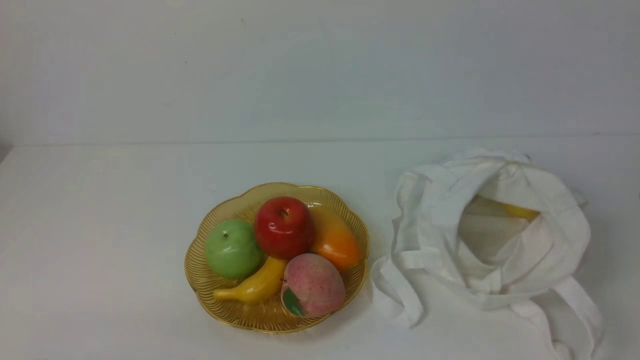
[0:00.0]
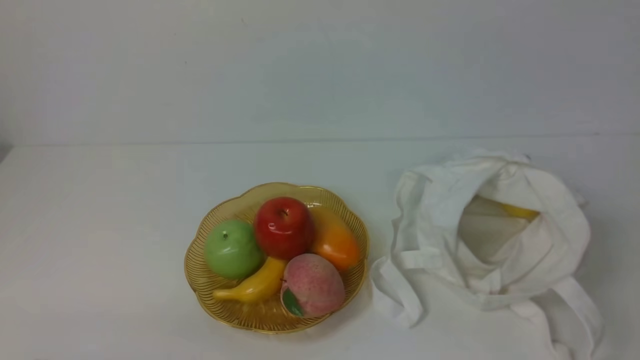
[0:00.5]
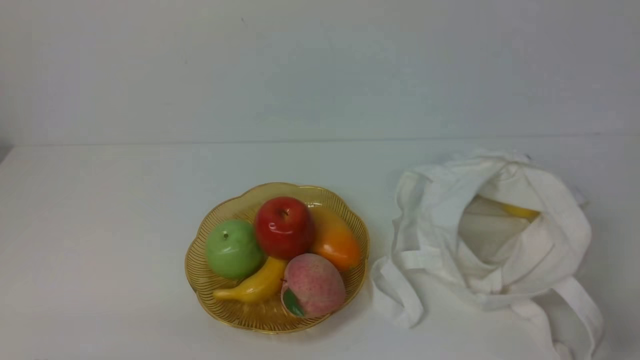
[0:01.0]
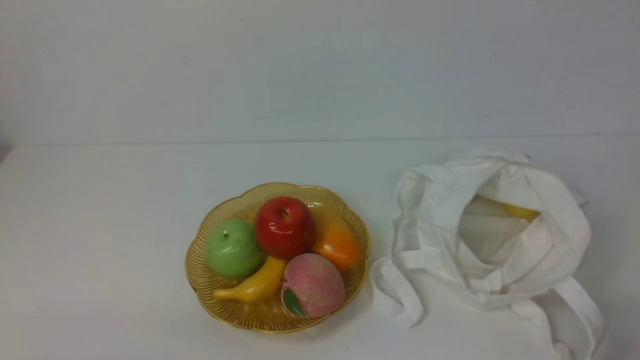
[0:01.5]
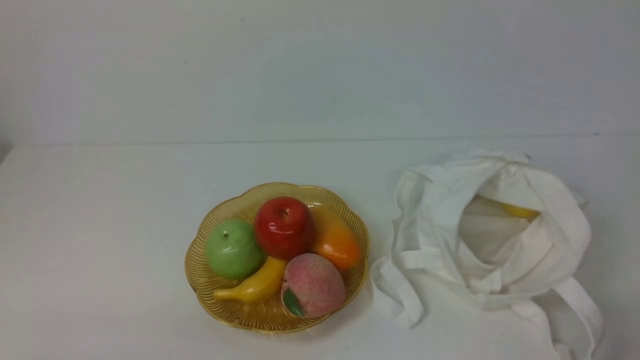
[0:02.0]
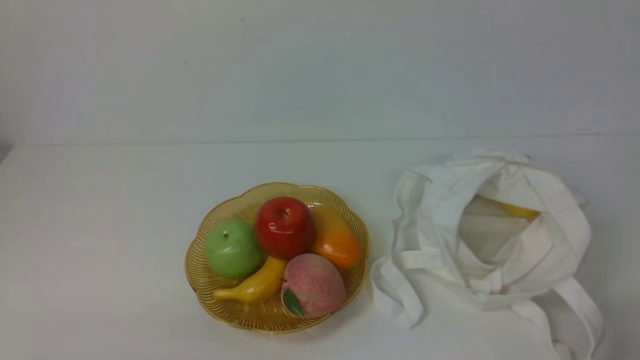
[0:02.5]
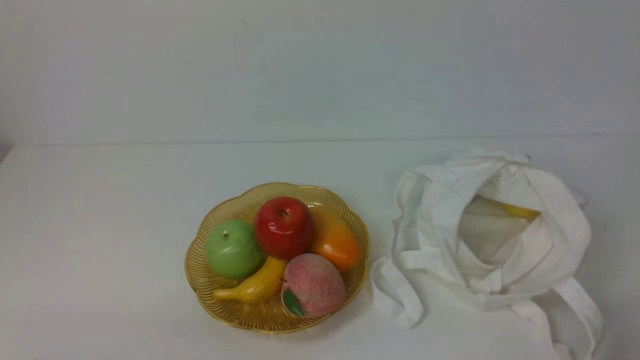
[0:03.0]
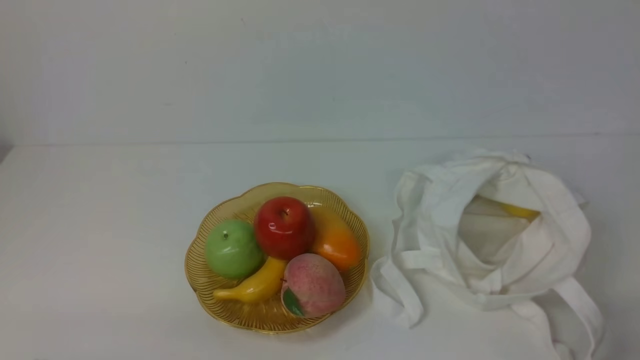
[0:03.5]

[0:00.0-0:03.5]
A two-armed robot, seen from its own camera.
0:02.0 to 0:03.5: Both grippers stay put.

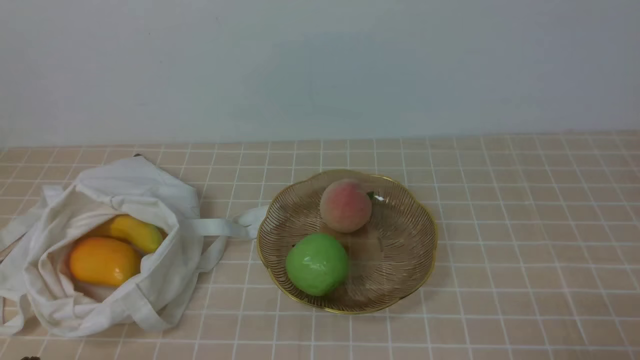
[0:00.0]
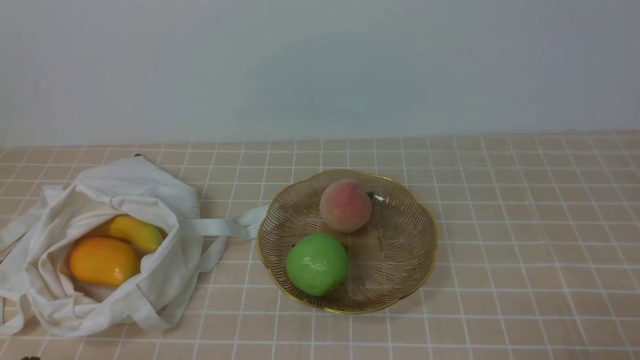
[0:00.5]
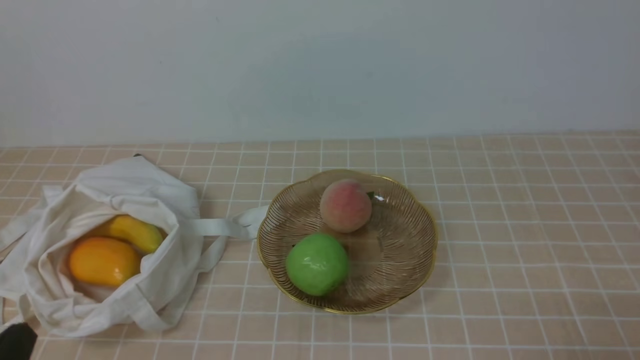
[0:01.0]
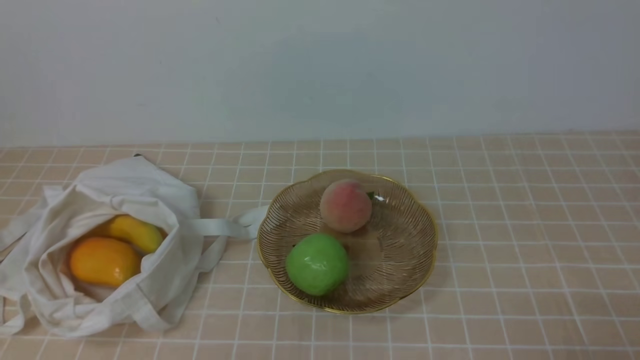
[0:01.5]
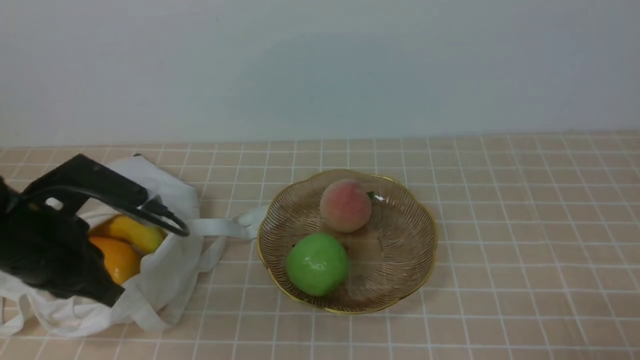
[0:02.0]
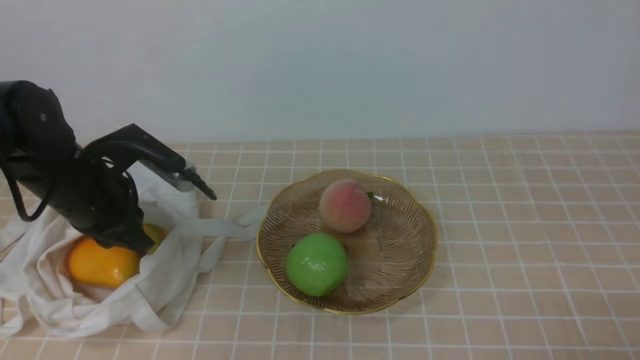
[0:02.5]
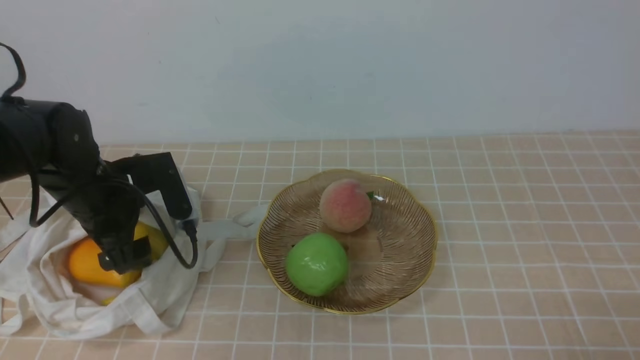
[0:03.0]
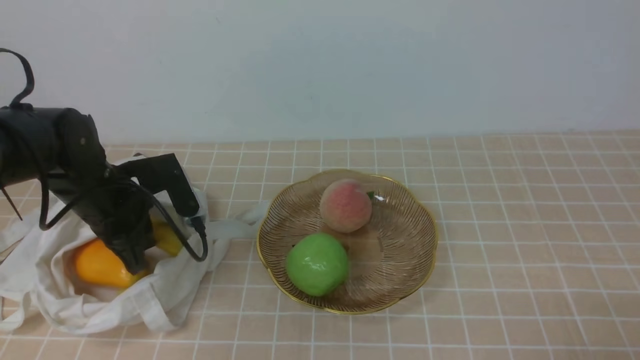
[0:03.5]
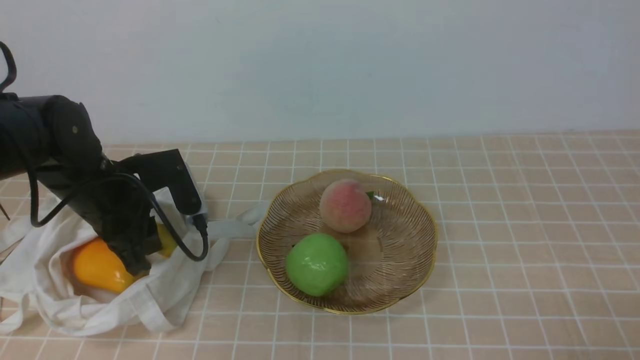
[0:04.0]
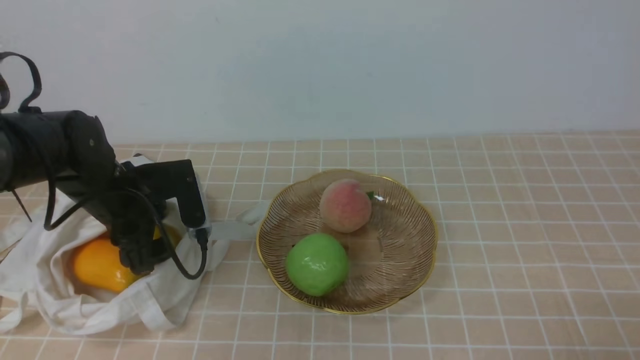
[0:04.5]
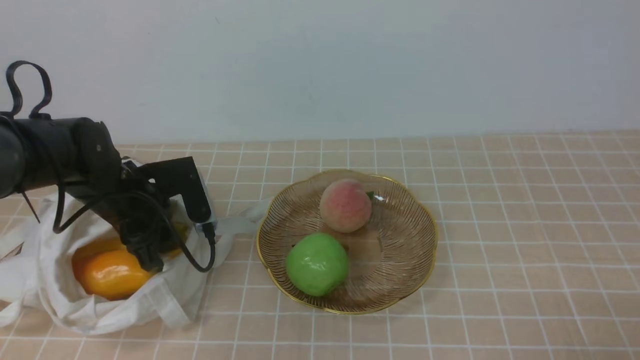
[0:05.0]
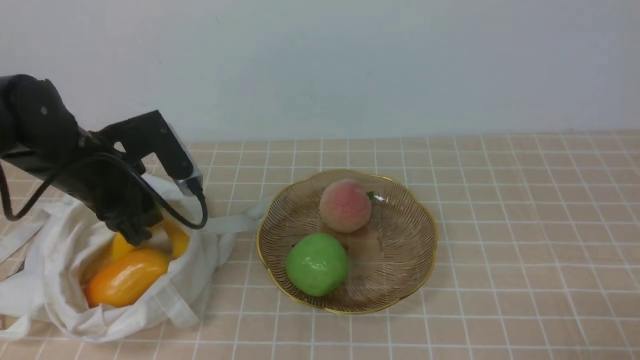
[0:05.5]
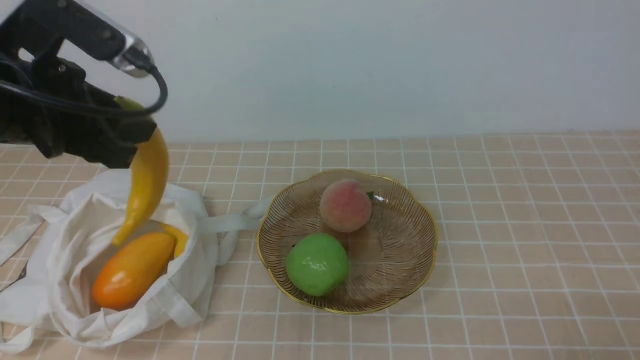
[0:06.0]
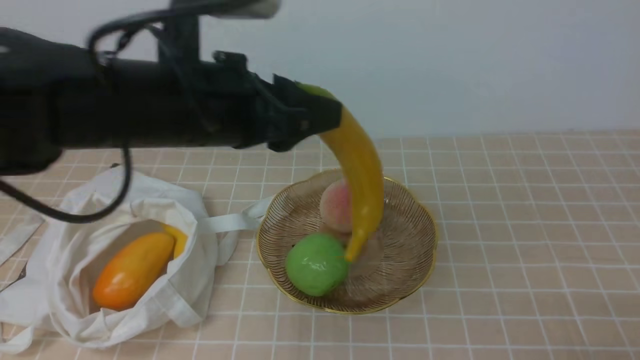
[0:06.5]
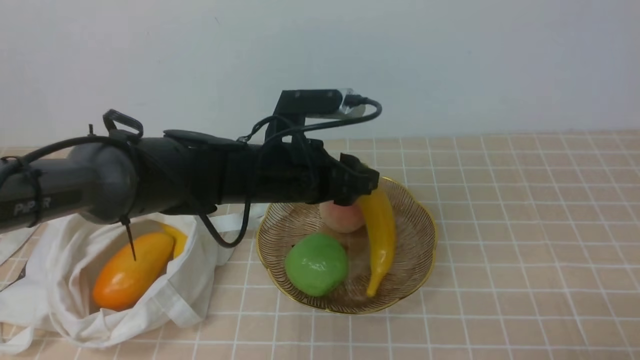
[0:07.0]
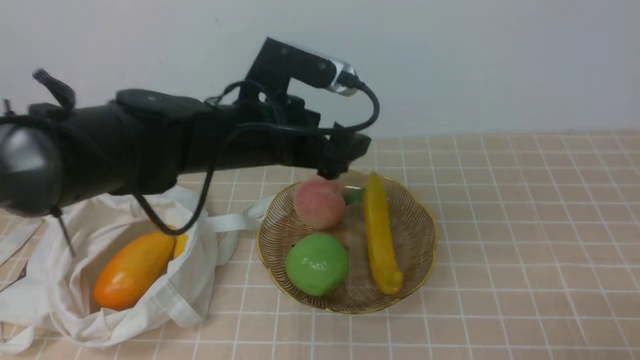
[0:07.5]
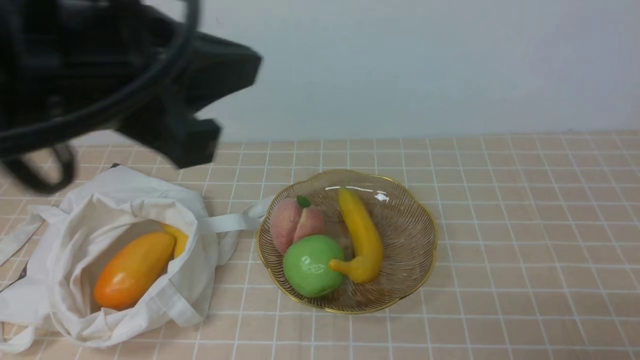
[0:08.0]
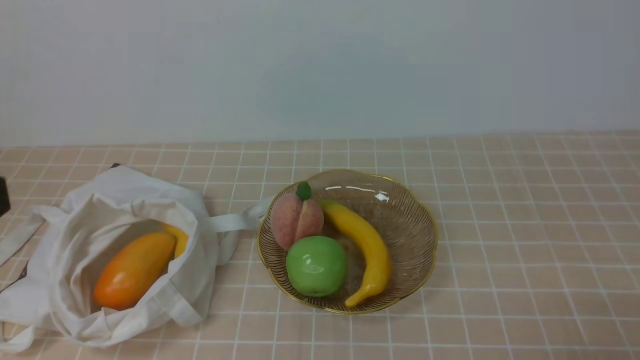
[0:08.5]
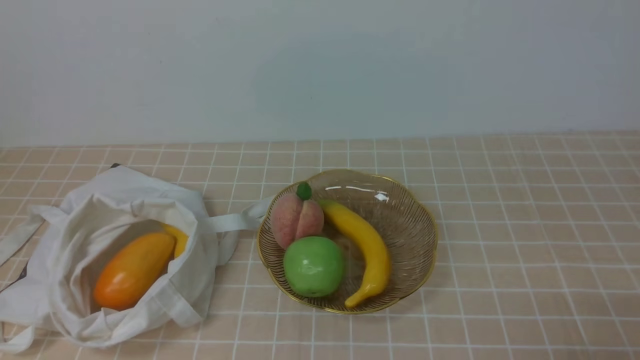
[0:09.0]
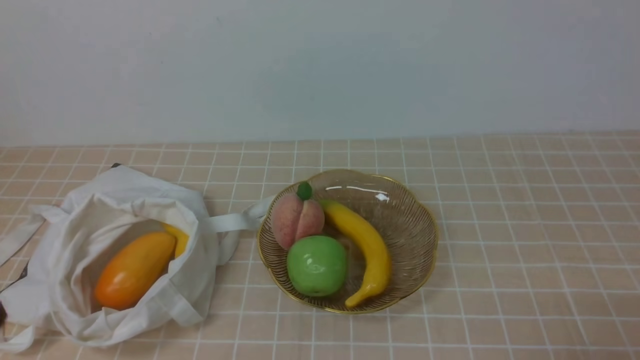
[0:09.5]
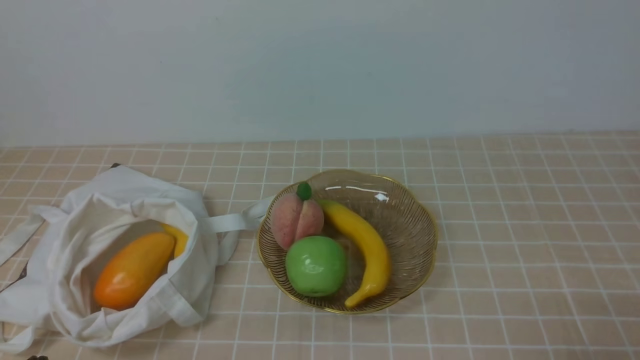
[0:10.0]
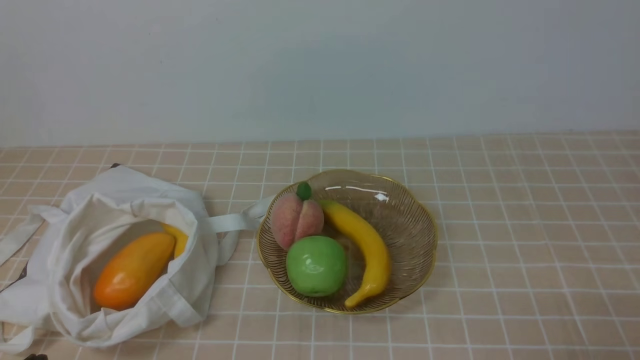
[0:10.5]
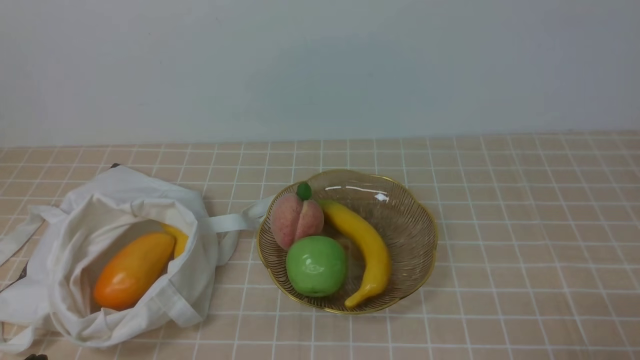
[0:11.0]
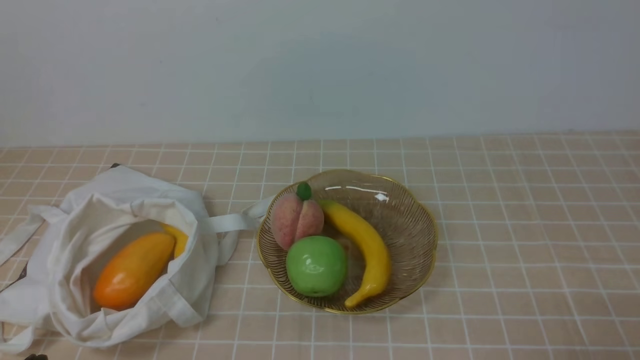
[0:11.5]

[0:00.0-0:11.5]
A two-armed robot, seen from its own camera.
Step, 0:00.0 to 0:05.5: use the left arm to grab a banana from the bag.
Step, 0:06.0 to 0:07.0: use the left arm to put the banana into the empty plate on the right.
0:00.0 to 0:02.0: The left gripper heads forward and upward, covering roughly 20 cm.
0:02.0 to 0:04.0: The left gripper travels forward and downward by about 10 cm, and opens, then closes again.
0:04.0 to 0:06.0: The left gripper goes approximately 15 cm upward and backward.
0:06.0 to 0:07.5: The left gripper travels to the right and downward by roughly 15 cm, and opens up.
0:07.5 to 0:09.5: The left gripper goes approximately 35 cm backward and to the left, and closes up.
